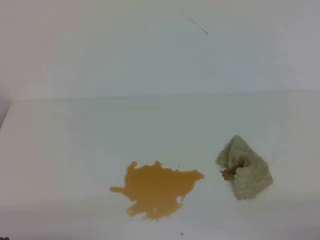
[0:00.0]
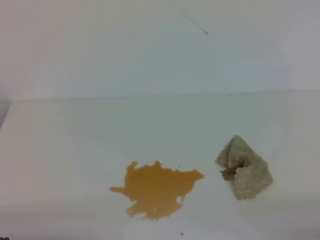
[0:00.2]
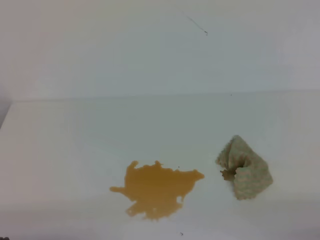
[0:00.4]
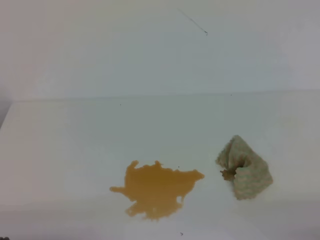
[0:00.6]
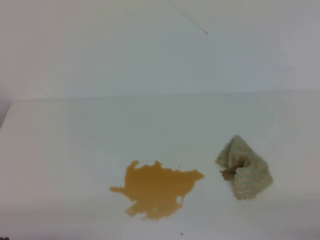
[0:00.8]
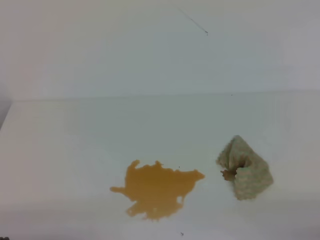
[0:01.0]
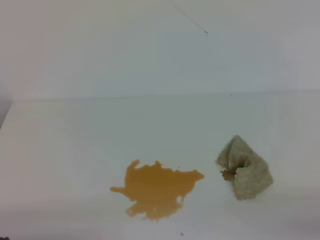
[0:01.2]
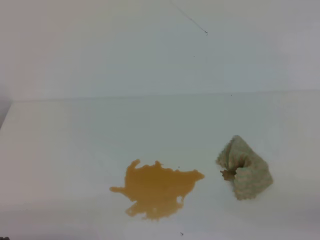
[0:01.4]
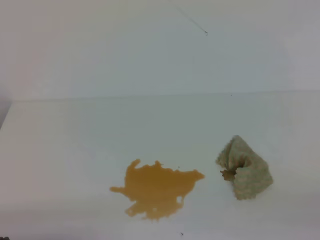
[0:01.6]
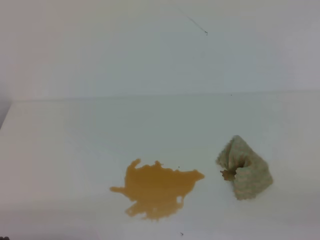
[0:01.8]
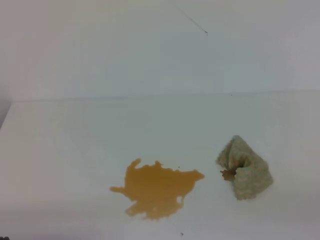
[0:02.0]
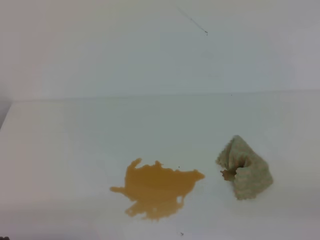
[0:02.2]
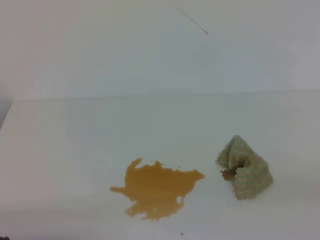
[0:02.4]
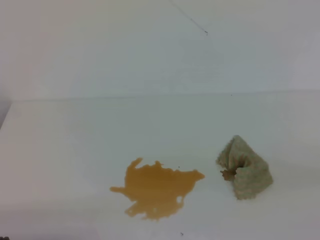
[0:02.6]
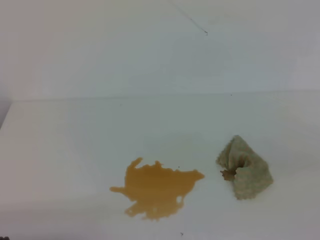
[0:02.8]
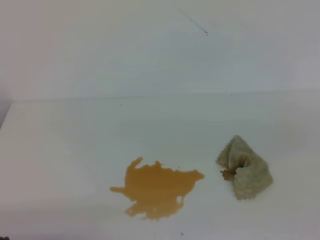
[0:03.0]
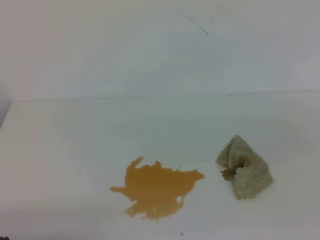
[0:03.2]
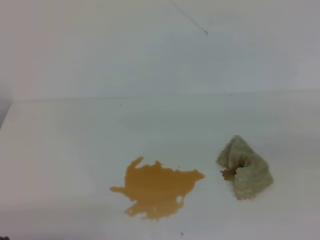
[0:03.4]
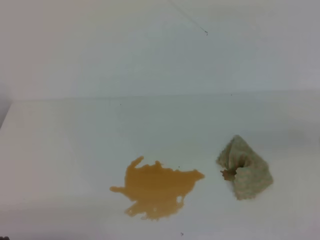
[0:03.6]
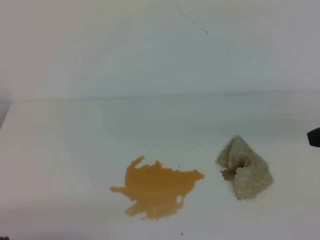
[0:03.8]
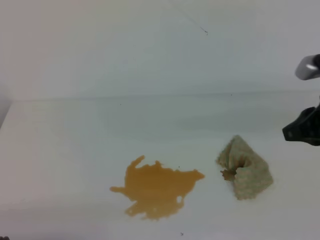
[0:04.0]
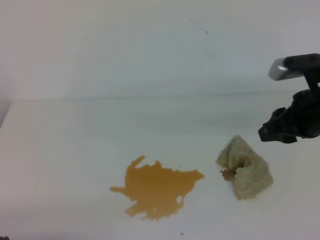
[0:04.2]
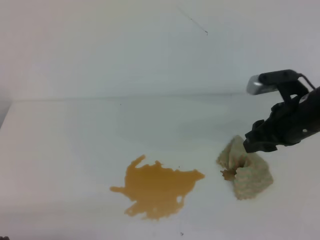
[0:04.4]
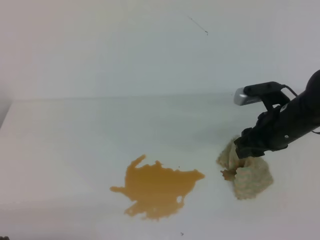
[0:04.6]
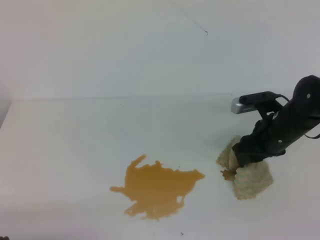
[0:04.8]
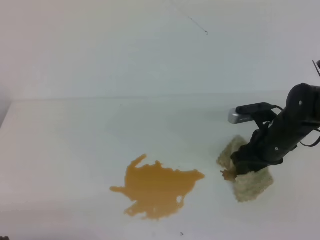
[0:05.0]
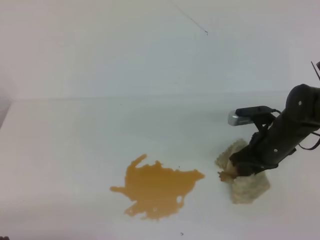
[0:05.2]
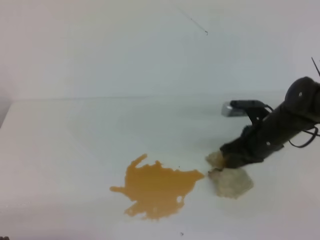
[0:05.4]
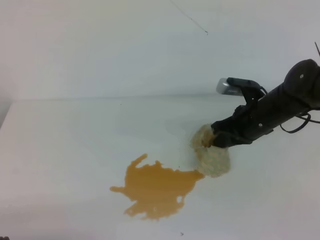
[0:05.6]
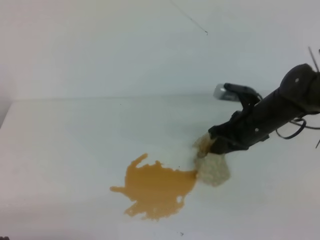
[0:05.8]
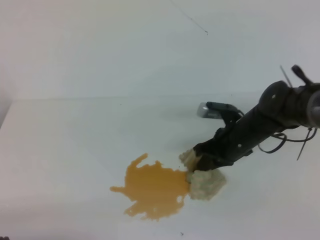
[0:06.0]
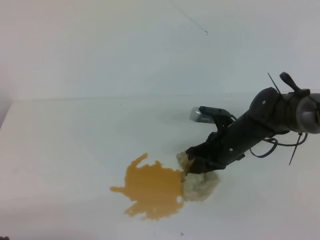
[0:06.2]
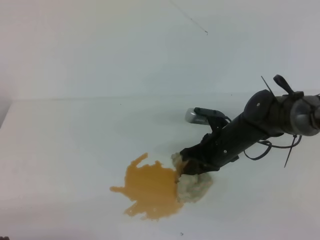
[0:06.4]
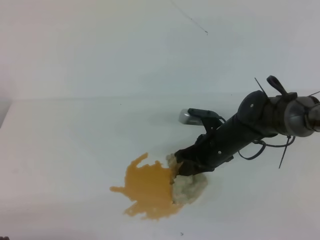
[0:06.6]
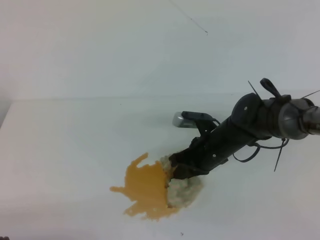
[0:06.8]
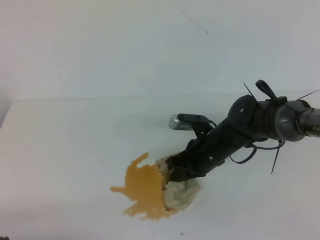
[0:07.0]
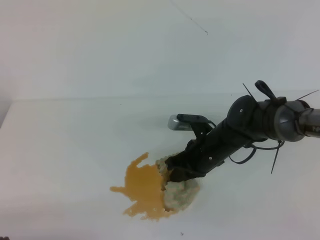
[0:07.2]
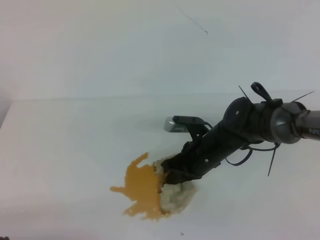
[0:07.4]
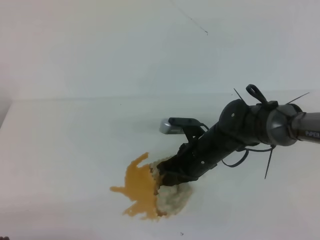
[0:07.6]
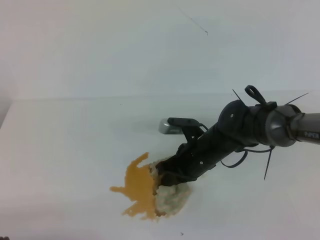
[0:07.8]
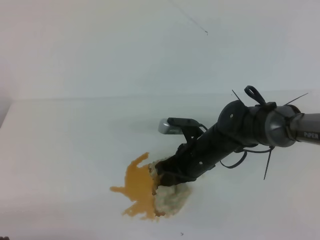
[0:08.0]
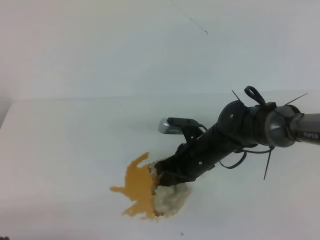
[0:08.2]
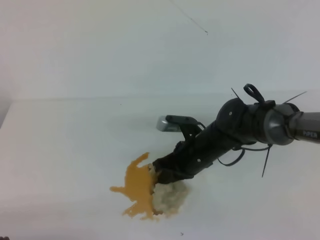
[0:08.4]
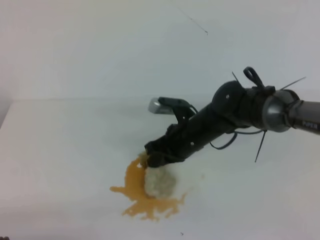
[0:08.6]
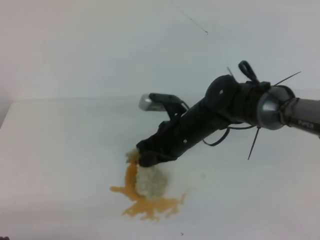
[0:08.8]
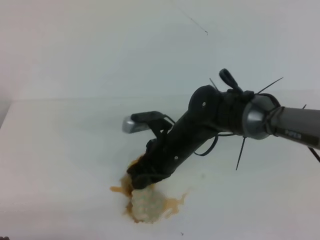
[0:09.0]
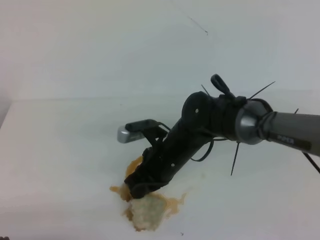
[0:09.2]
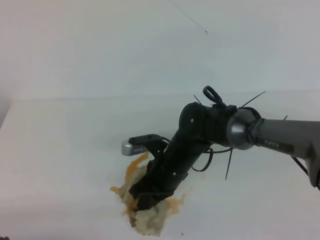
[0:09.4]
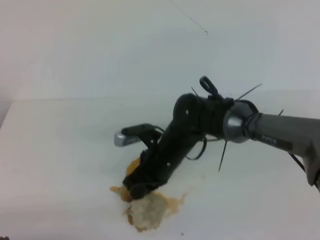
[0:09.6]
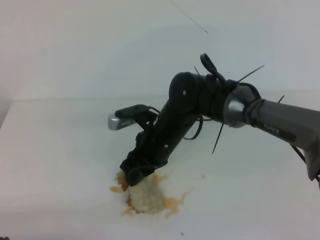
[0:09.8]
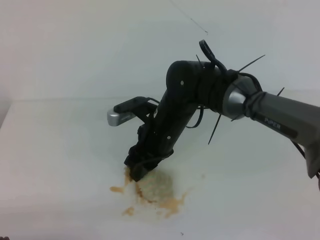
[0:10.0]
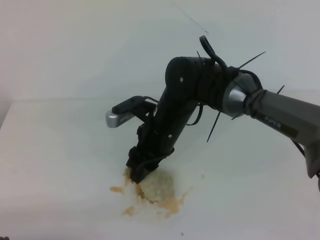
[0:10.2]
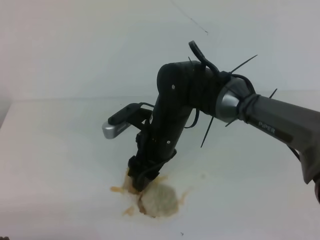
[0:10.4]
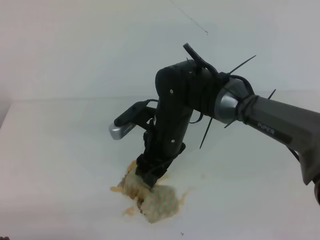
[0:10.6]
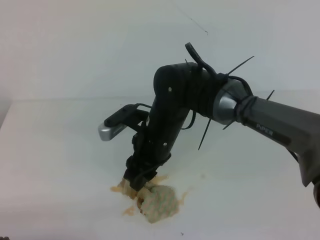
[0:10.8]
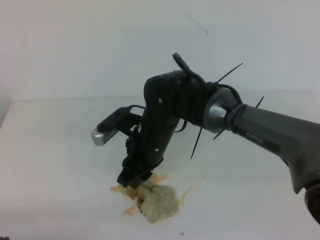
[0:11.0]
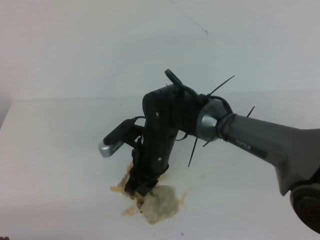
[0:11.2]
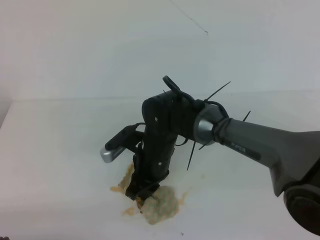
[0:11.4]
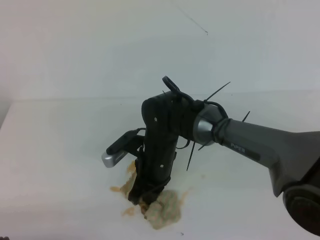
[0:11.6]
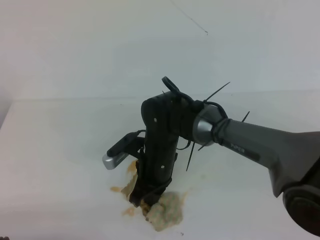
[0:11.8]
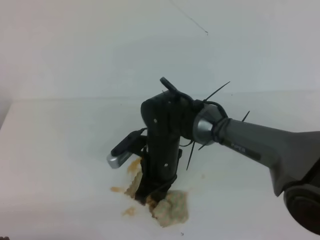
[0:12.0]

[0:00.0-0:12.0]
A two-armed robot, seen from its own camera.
Step, 0:03.2 to 0:10.8: Sweep the stains on the table with the right gripper.
Step, 0:11.0 to 0:11.6: Place the tablecloth with the right gripper.
0:03.0 to 0:04.4: The right gripper shifts about 25 cm forward and to the left, and opens up.
0:04.4 to 0:06.0: The right gripper travels downward, to the left and forward by about 15 cm, and closes its fingers.
0:06.0 to 0:07.6: The right gripper goes about 10 cm to the left.
0:07.6 to 0:09.0: The right gripper heads to the left, covering some 5 cm.
0:09.0 to 0:10.4: The right gripper opens its fingers.
0:10.4 to 0:12.0: The right gripper moves downward, approximately 5 cm, and closes up.

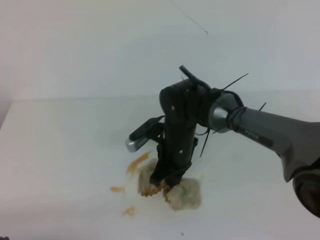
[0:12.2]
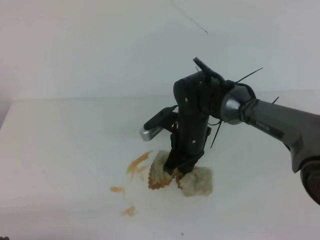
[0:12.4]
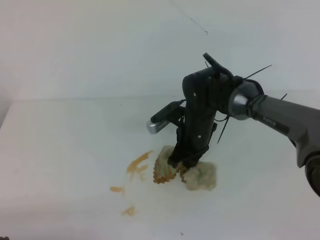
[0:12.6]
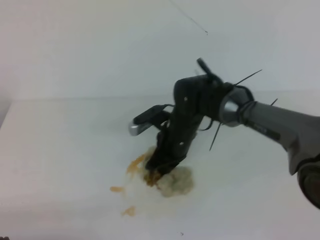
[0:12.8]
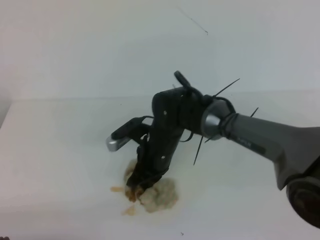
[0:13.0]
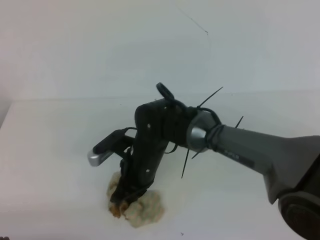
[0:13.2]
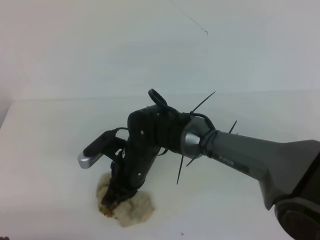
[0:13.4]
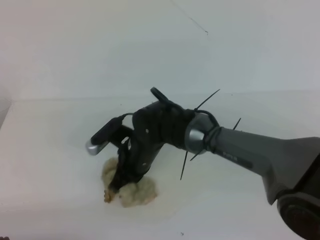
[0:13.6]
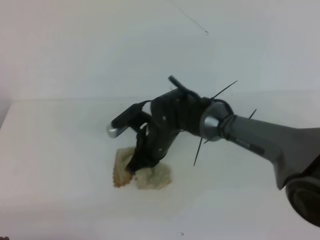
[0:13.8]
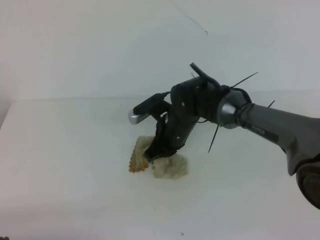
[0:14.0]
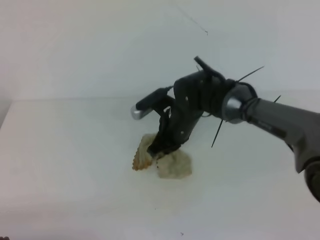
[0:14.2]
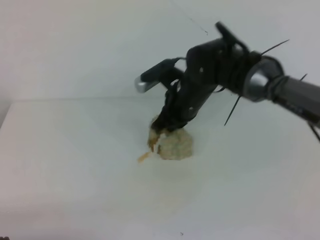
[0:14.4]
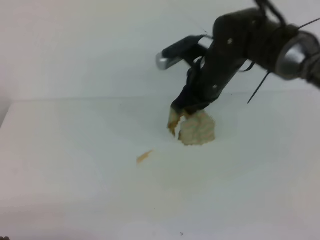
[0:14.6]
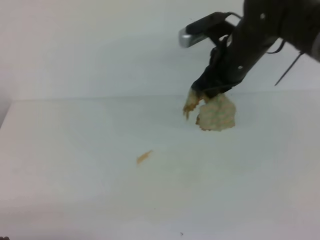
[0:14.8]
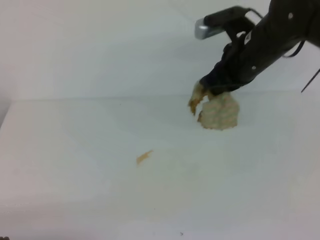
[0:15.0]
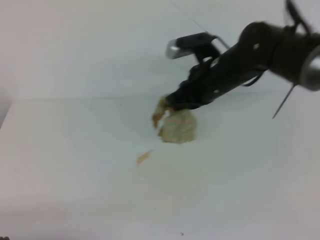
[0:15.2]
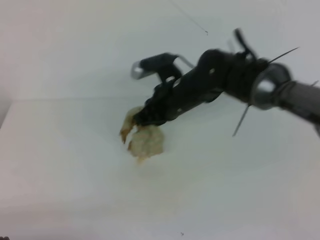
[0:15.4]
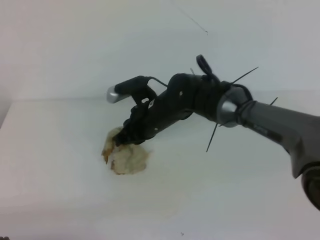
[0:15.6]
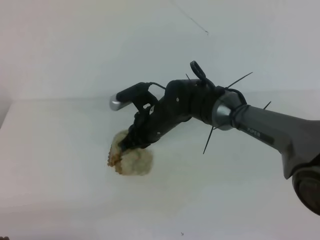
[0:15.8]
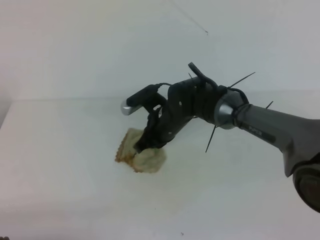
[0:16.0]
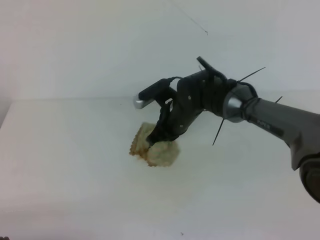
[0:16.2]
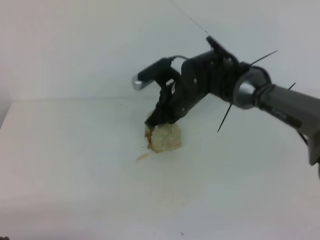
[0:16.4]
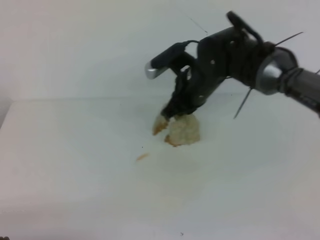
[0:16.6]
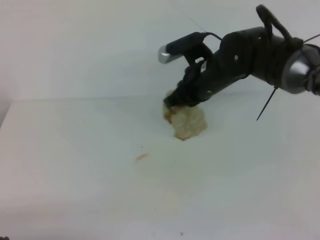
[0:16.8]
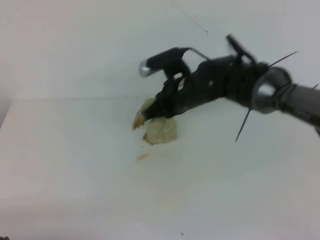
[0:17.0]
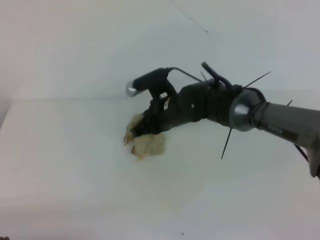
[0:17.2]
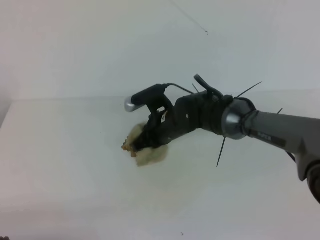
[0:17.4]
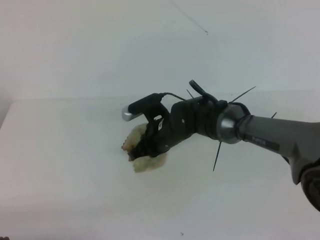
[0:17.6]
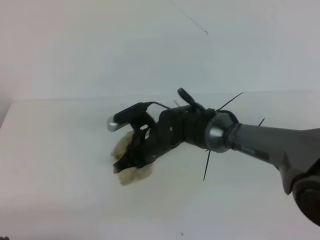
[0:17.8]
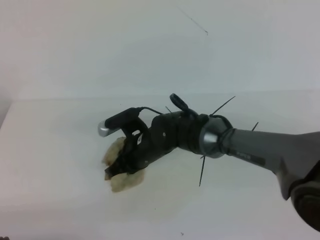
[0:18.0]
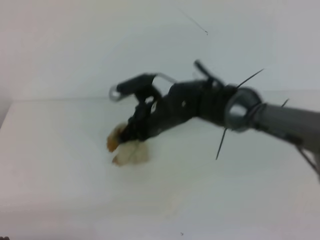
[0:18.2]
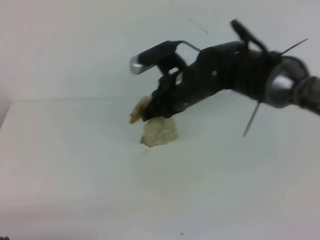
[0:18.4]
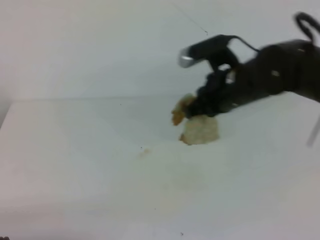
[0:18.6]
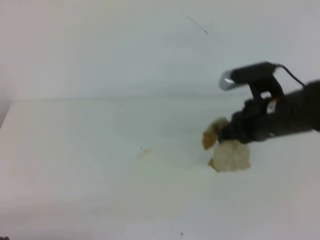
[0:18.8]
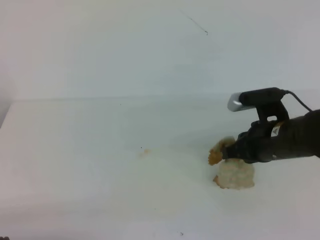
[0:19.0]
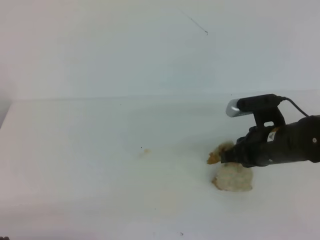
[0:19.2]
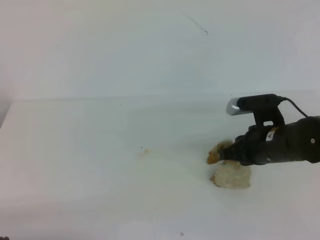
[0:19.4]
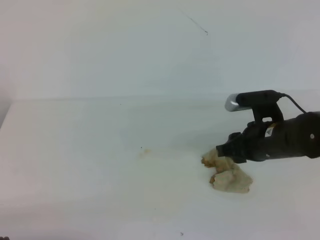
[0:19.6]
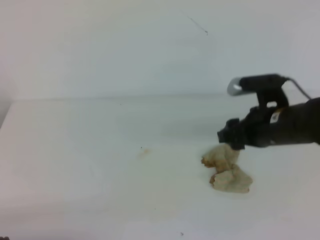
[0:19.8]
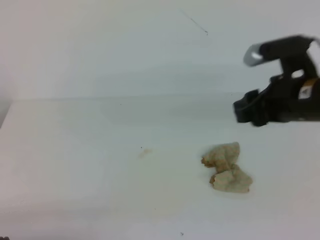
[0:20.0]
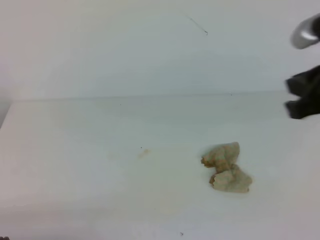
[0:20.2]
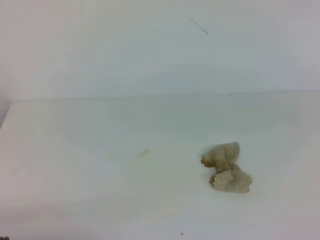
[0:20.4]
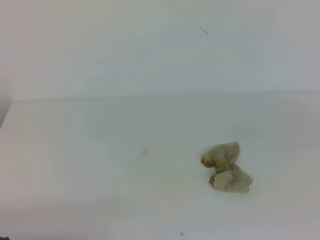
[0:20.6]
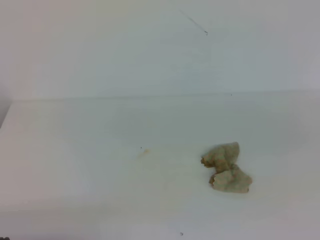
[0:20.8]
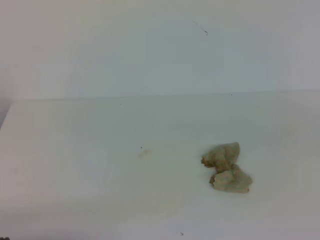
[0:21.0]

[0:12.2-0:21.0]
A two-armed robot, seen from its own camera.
0:12.2 to 0:13.6: The right gripper heads to the left, covering approximately 5 cm.
0:13.6 to 0:15.2: The right gripper goes approximately 15 cm to the right and upward.
0:15.2 to 0:16.6: The right gripper moves approximately 10 cm downward and comes back.
0:16.6 to 0:18.0: The right gripper travels downward and to the left by roughly 10 cm.
0:18.0 to 0:19.6: The right gripper is displaced to the right by about 20 cm, and opens up.
0:19.6 to 0:21.0: The right gripper heads backward, upward and to the right, covering about 25 cm, and closes up.
